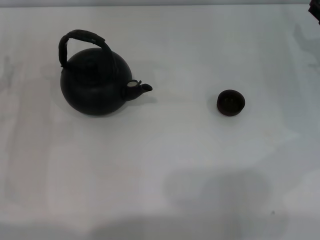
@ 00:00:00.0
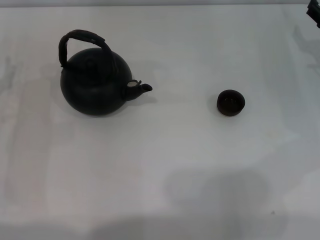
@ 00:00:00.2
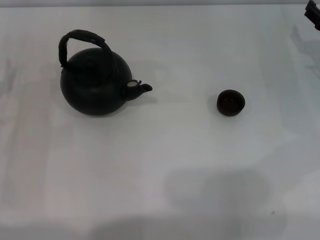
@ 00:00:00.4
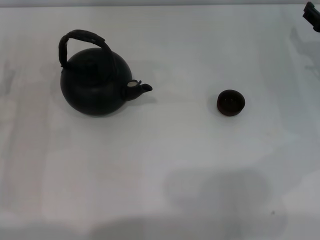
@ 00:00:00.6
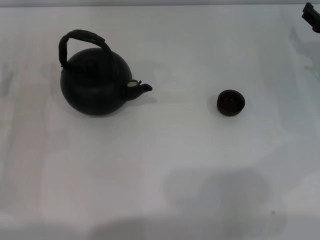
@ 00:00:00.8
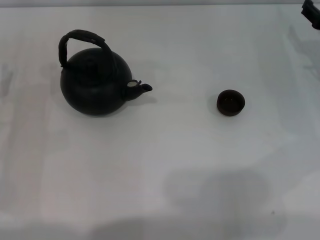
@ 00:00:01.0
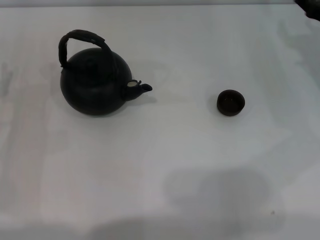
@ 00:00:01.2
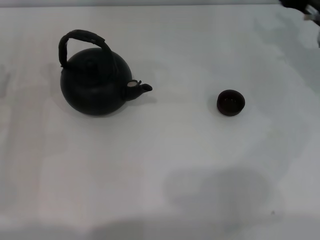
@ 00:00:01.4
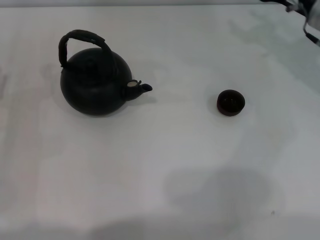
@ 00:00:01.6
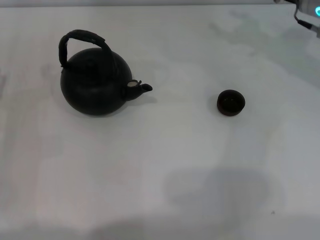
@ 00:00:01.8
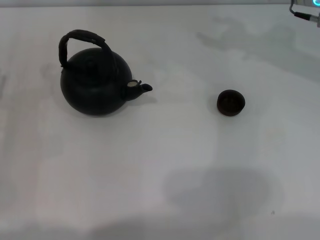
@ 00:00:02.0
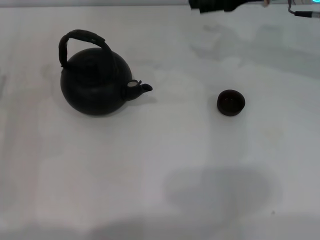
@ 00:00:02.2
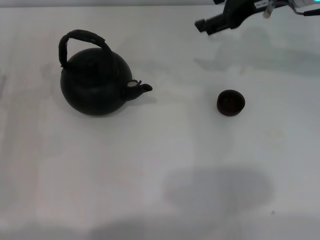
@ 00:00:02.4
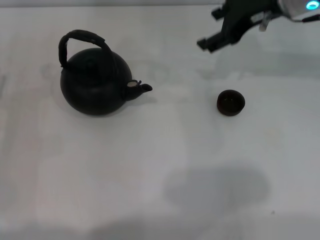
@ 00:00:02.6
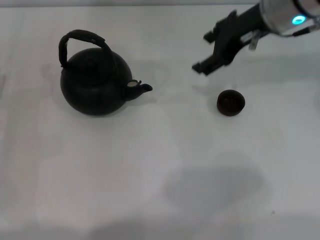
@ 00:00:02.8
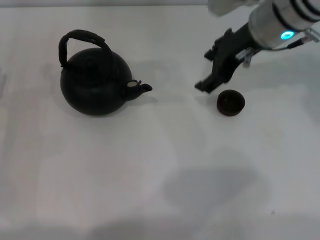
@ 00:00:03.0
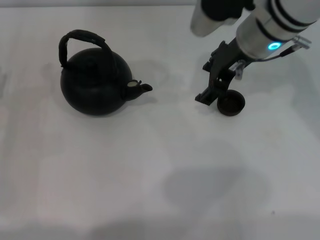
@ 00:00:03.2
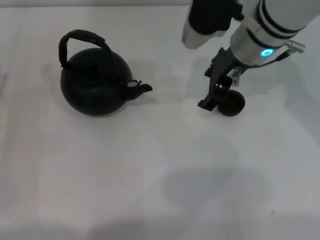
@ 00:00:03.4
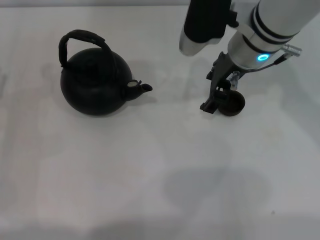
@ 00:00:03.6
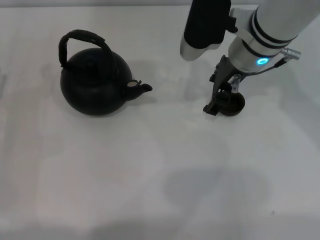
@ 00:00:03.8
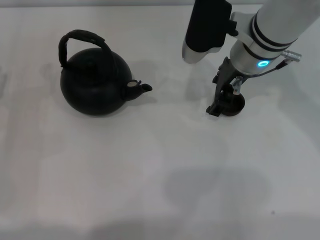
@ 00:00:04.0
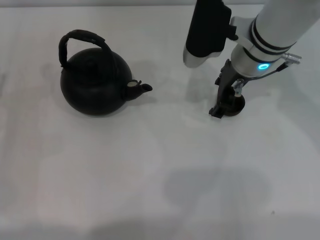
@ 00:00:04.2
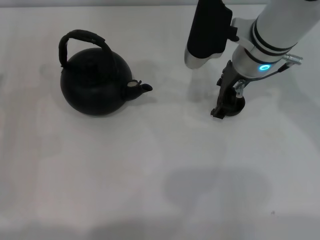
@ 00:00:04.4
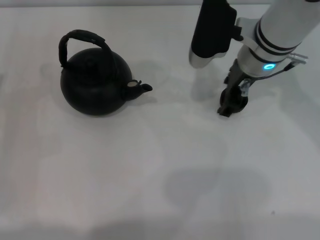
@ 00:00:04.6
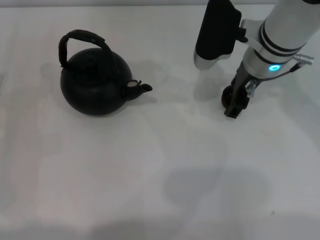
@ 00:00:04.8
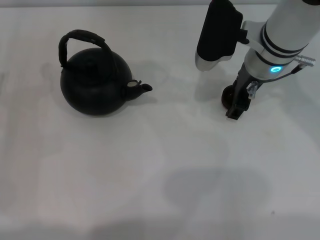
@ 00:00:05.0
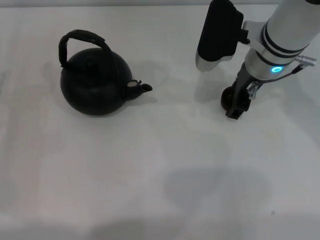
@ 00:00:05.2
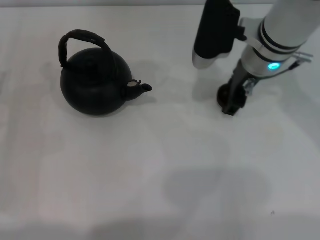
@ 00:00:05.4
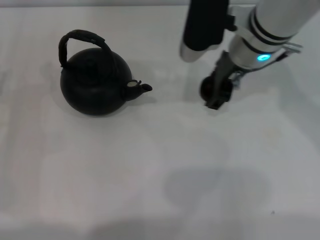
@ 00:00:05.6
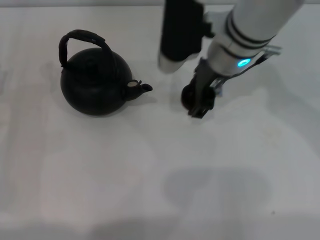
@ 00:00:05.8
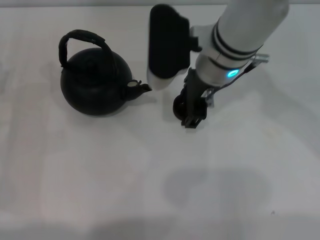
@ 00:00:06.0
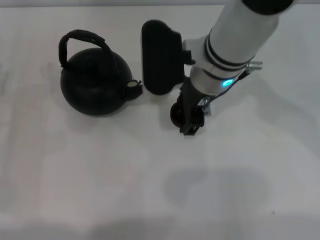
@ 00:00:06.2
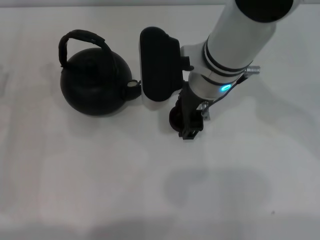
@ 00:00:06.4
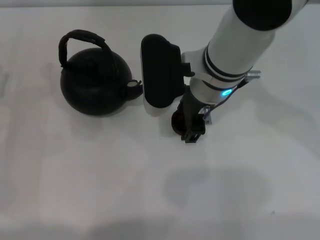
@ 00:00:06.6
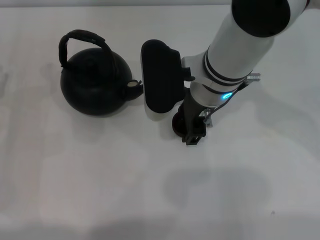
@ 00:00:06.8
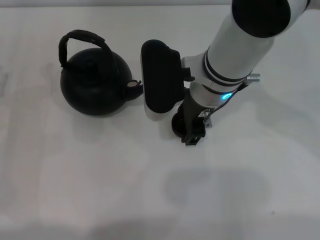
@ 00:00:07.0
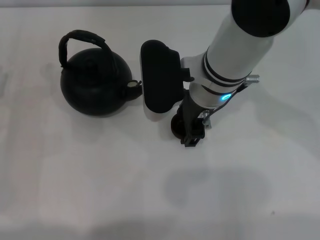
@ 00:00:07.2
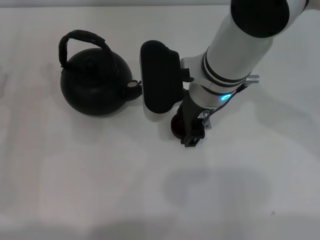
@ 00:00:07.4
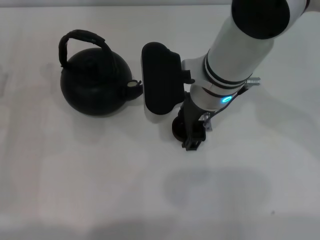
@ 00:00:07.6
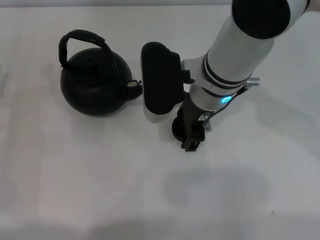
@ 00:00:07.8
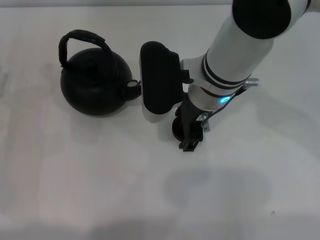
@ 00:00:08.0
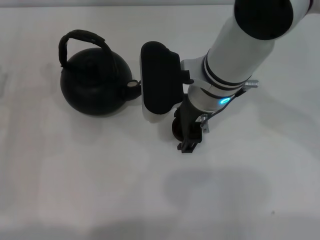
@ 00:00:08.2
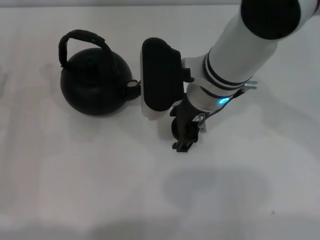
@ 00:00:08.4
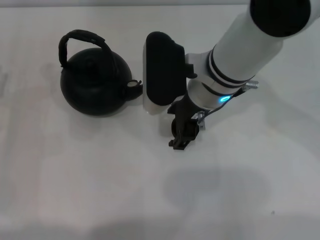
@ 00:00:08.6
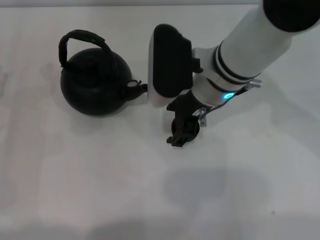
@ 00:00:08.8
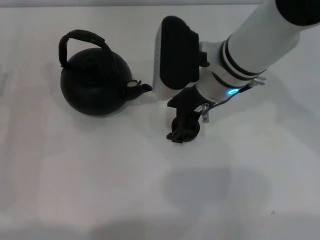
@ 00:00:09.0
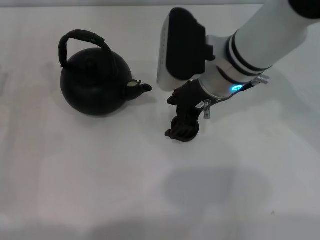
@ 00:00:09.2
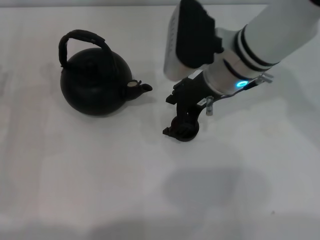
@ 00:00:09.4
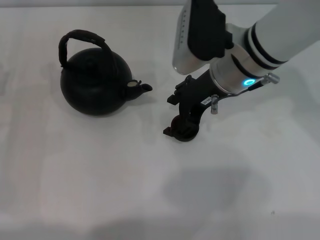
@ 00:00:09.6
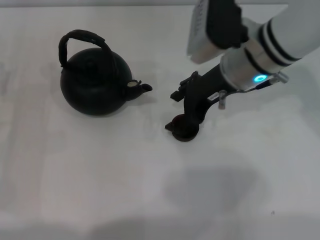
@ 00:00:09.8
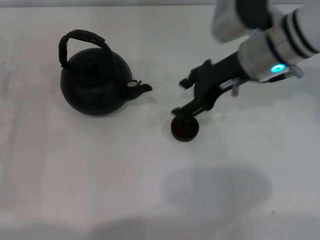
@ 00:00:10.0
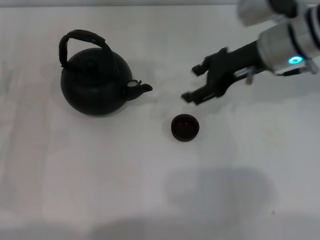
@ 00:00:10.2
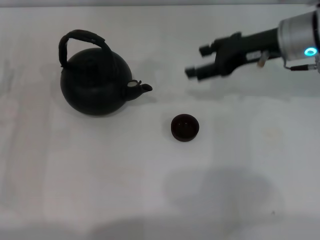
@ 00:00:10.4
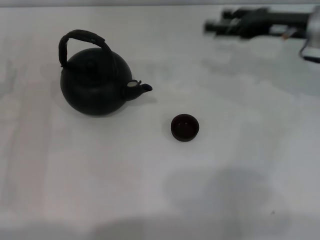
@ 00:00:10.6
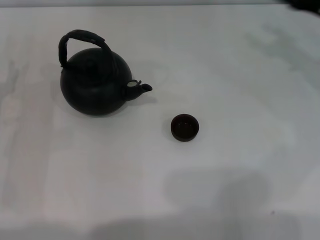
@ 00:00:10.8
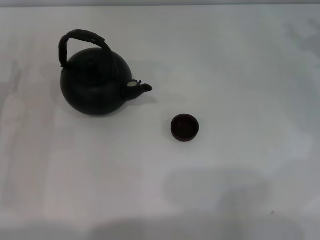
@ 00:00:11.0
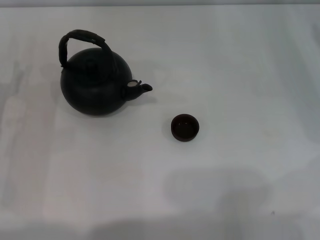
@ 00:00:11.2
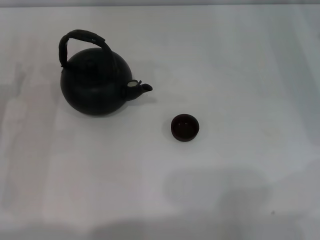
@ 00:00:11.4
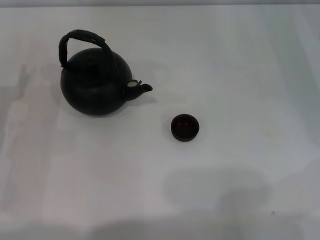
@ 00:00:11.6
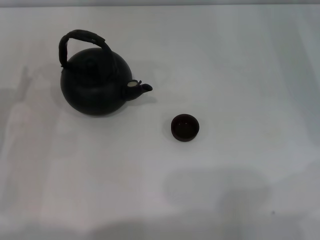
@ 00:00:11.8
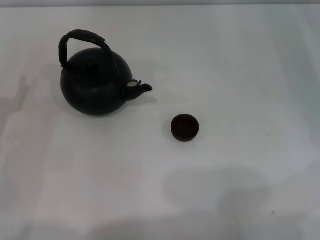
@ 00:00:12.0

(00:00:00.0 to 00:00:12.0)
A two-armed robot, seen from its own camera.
Task of the whole recording: Grasp the handle of the teapot with one hand and pour tea into the teacup.
Step, 00:00:00.0 - 00:00:05.6: Pick up the teacup with the right gripper.
Step, 00:00:05.8 - 00:00:08.6: Place the teacup in the center of view with the right gripper.
00:00:00.0 - 00:00:01.6: The right gripper is displaced to the left and upward by approximately 10 cm.
00:00:01.6 - 00:00:03.0: The right gripper is displaced to the left and upward by some 15 cm.
00:00:03.0 - 00:00:04.4: The right gripper goes approximately 5 cm downward.
00:00:04.4 - 00:00:06.0: The right gripper shifts approximately 5 cm to the left.
00:00:06.0 - 00:00:09.0: There are only small adjustments of the grippers.
00:00:09.0 - 00:00:10.4: The right gripper is displaced to the right by approximately 15 cm.
00:00:10.4 - 00:00:12.0: The right gripper goes roughly 20 cm to the right and downward.

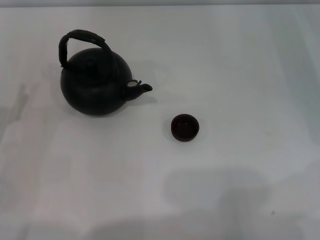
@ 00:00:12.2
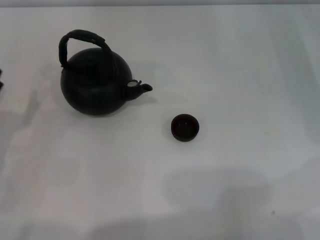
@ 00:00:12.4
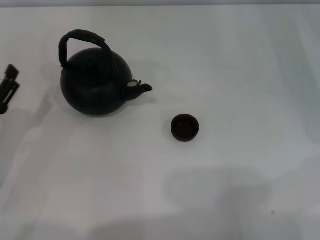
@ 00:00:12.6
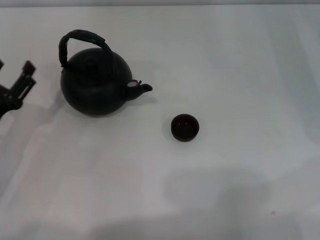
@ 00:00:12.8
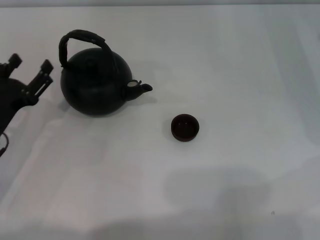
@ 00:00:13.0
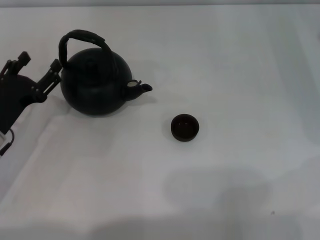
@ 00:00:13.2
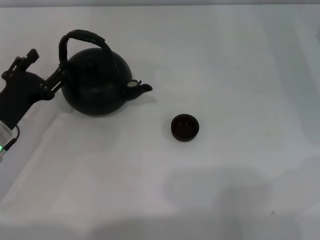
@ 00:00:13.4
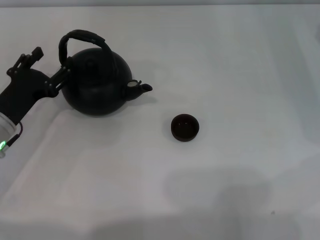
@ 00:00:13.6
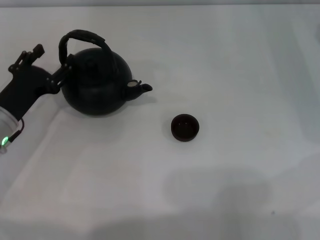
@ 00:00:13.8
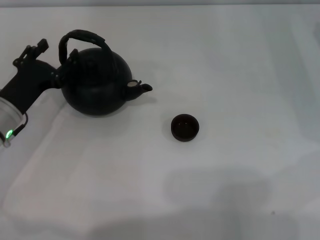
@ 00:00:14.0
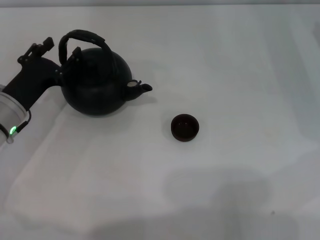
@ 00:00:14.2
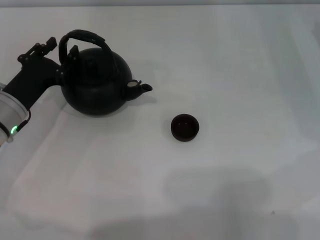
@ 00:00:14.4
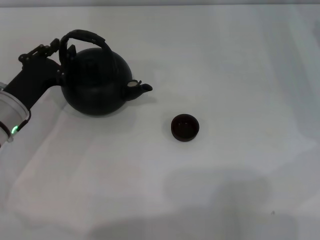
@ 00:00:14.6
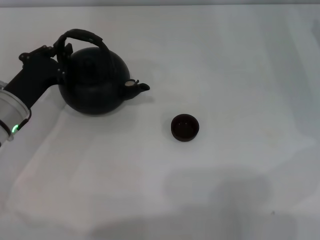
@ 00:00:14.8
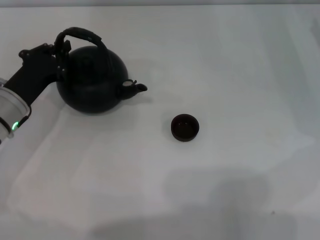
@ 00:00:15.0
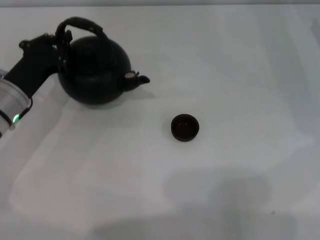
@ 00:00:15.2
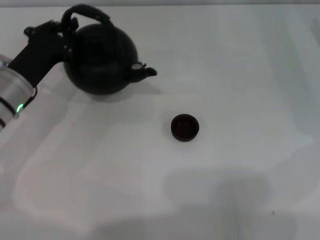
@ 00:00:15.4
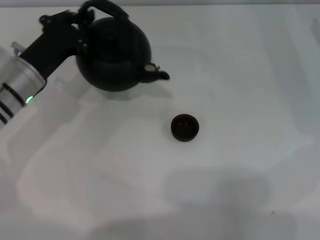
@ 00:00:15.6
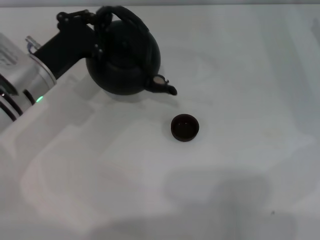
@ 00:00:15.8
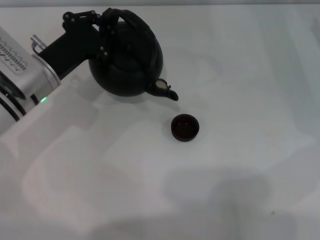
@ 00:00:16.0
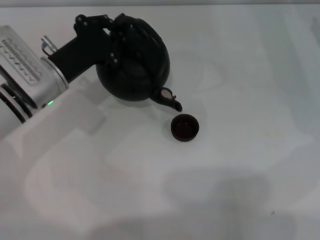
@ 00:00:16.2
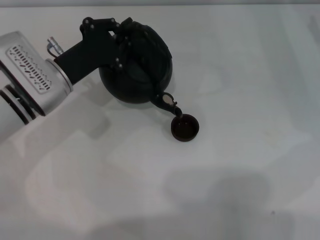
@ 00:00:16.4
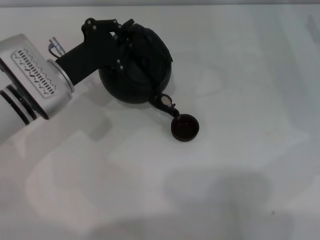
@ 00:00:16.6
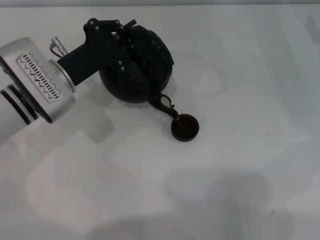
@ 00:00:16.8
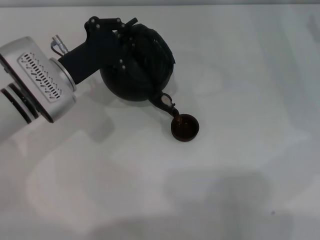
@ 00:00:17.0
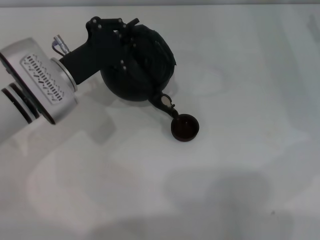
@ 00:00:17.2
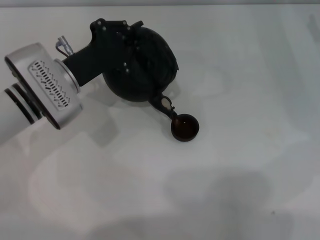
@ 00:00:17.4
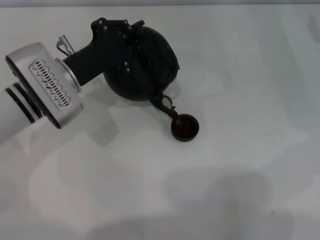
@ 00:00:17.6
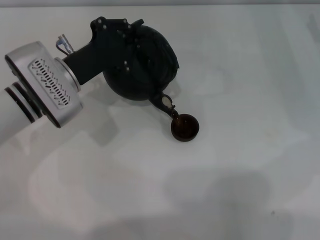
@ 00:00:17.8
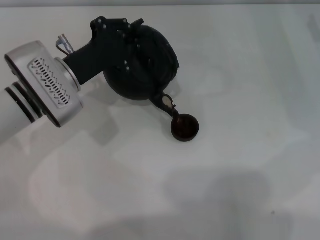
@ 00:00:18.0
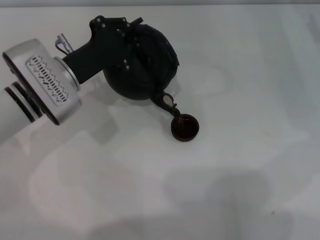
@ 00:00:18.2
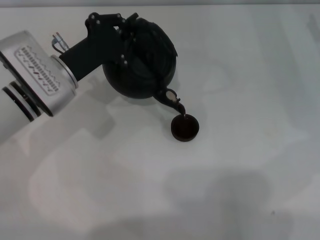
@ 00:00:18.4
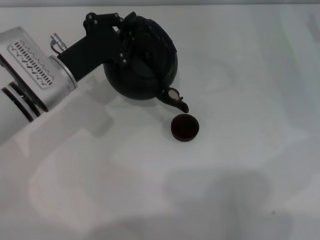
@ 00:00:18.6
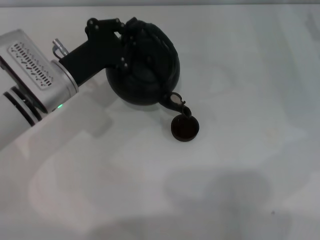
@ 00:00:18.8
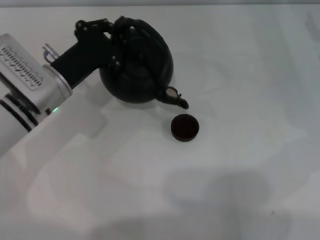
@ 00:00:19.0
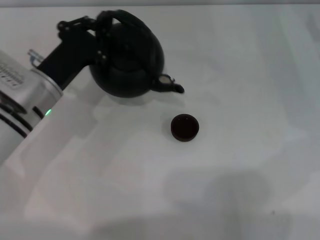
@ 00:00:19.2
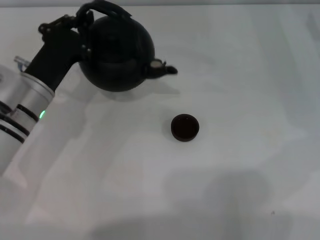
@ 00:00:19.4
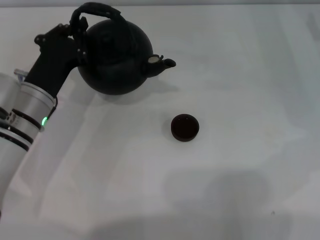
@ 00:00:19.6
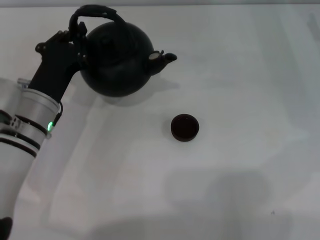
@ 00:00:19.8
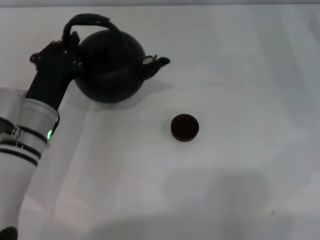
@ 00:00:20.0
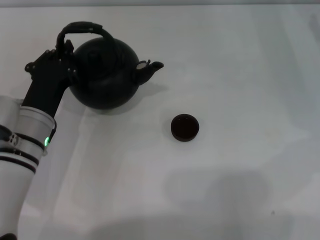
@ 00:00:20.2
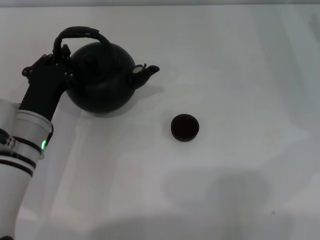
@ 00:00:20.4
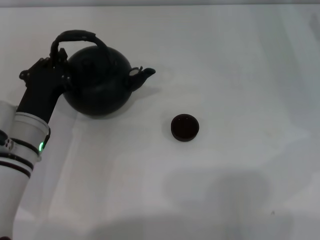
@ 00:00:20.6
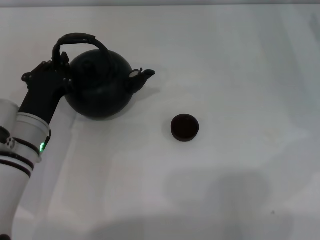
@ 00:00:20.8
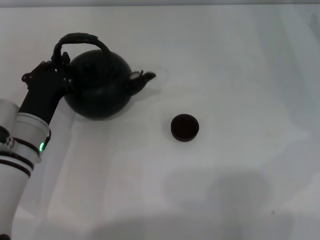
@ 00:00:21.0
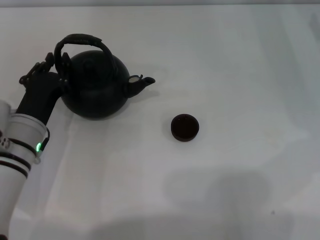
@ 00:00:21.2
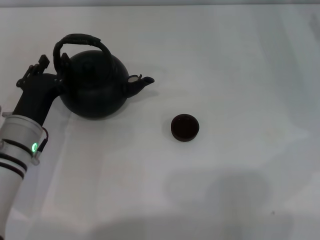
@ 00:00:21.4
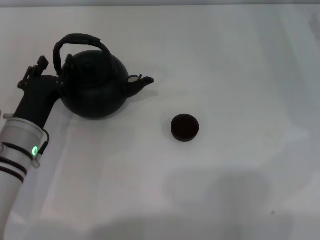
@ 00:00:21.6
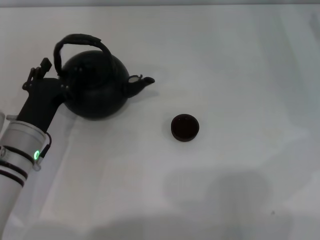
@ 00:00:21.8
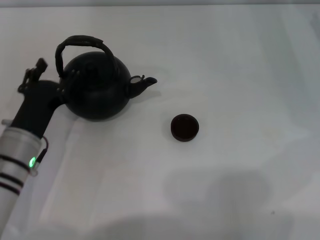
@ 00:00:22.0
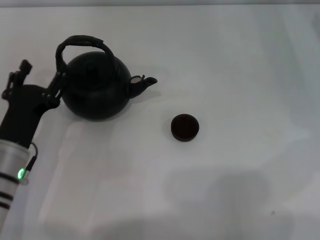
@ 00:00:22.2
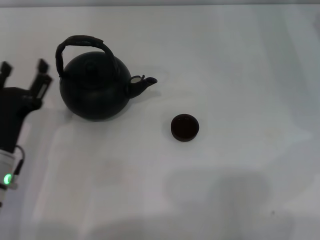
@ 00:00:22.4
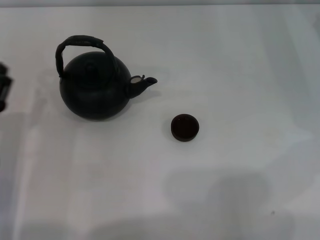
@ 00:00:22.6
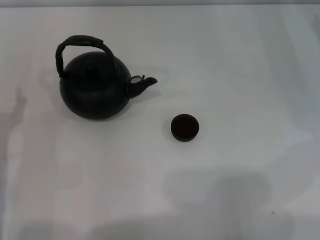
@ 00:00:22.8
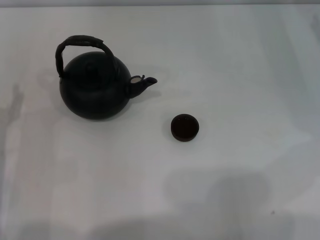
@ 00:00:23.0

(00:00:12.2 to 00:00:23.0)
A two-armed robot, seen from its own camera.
Task of the whole recording: Grasp the handle of the teapot with one hand and pour tea into the teacup.
Step, 00:00:12.2 - 00:00:15.6: Pick up the teapot with the left gripper.
Step, 00:00:16.0 - 00:00:18.8: Pour tea into the teacup with the left gripper.
Step, 00:00:19.0 - 00:00:21.2: Put down the teapot with the left gripper.
00:00:12.2 - 00:00:13.8: The left gripper is displaced forward and to the right by some 10 cm.
00:00:13.8 - 00:00:15.2: The left gripper closes up.
00:00:15.2 - 00:00:16.8: The left gripper moves to the right, approximately 5 cm.
00:00:16.8 - 00:00:18.4: The grippers make only small movements.
00:00:18.4 - 00:00:20.0: The left gripper moves backward, some 5 cm.
00:00:20.0 - 00:00:21.4: The grippers stay close to where they were, moving slightly.
00:00:21.4 - 00:00:23.0: The left gripper shifts roughly 10 cm to the left, and opens its fingers.
